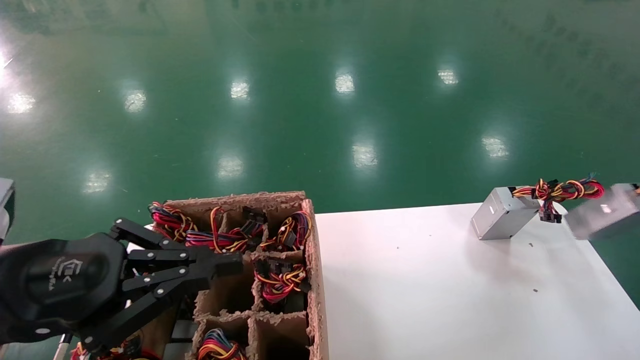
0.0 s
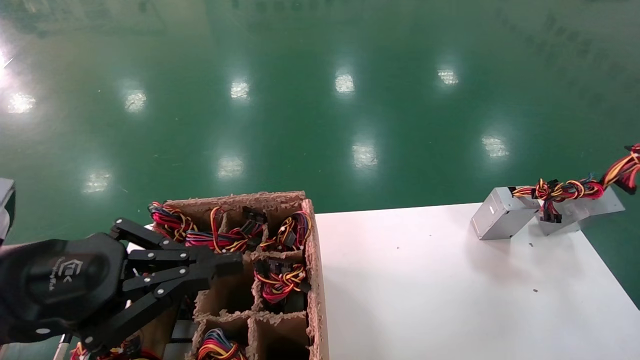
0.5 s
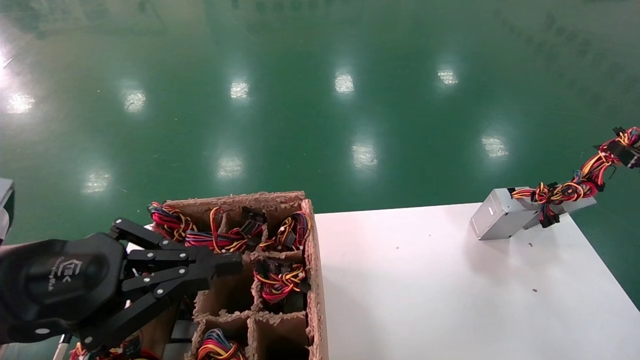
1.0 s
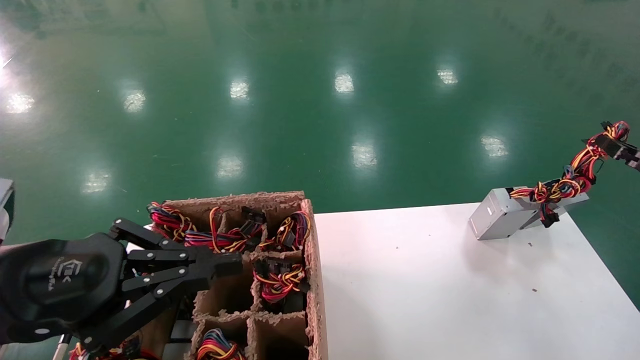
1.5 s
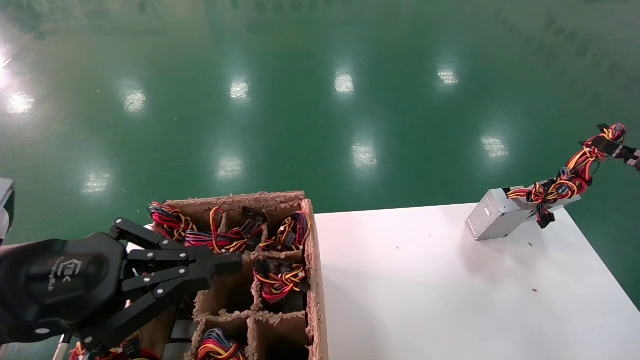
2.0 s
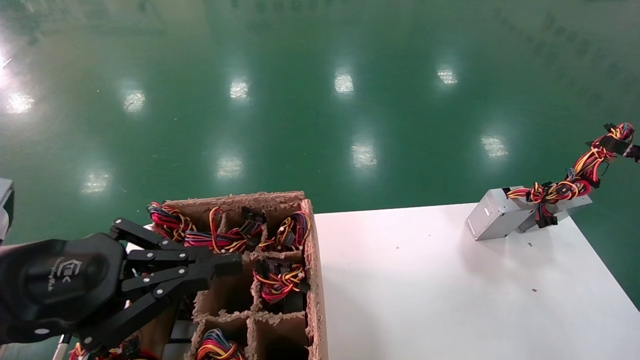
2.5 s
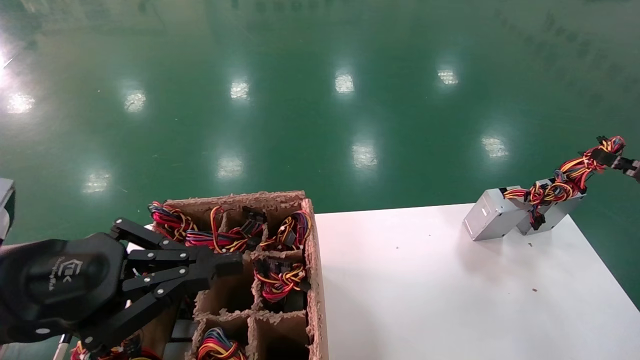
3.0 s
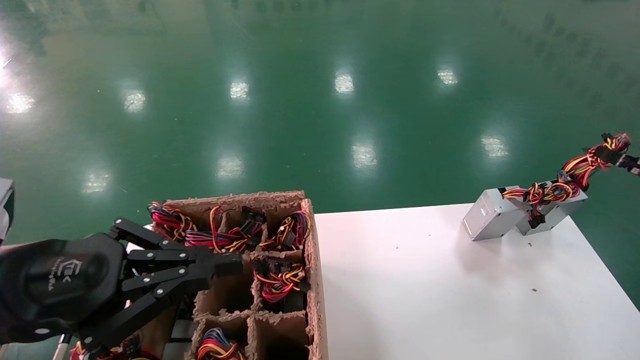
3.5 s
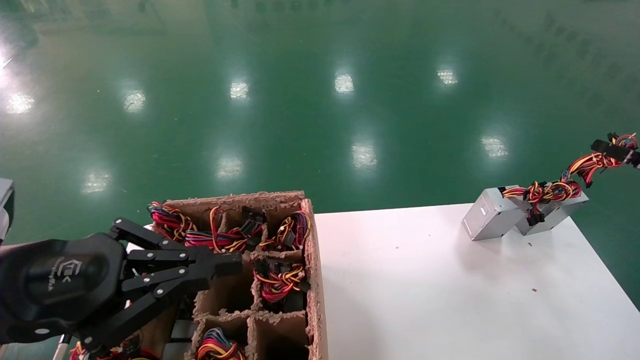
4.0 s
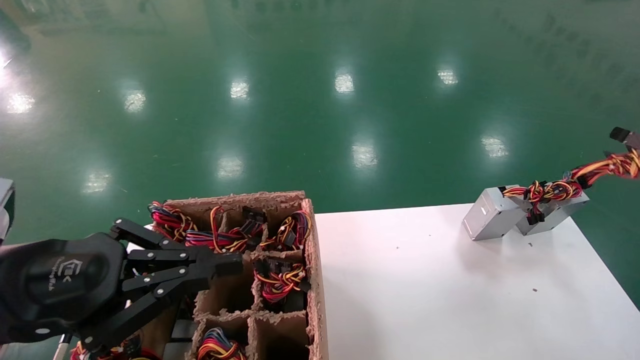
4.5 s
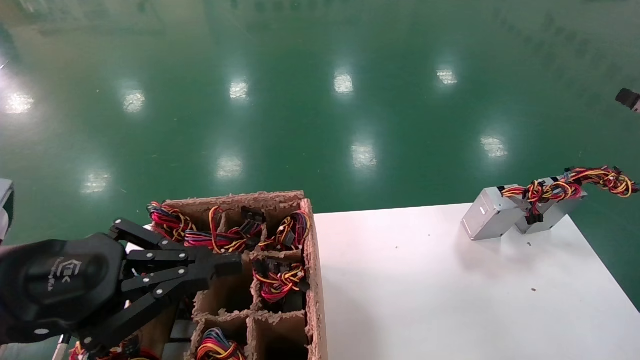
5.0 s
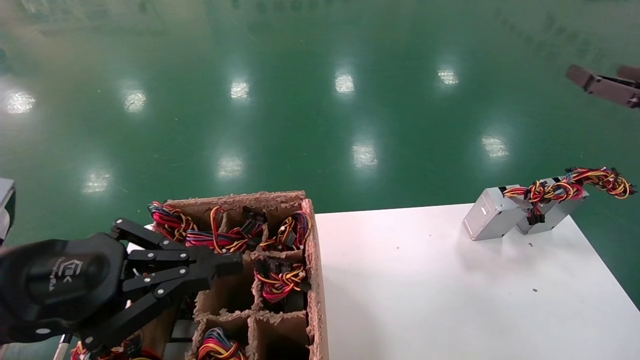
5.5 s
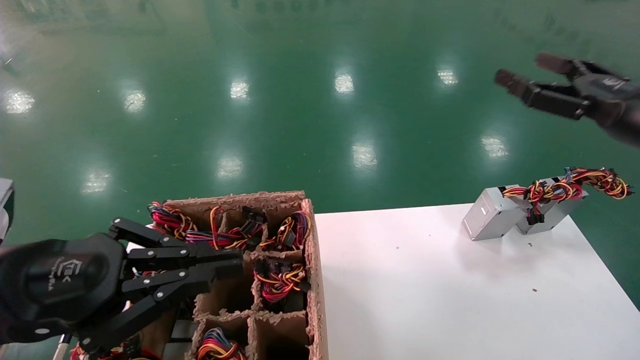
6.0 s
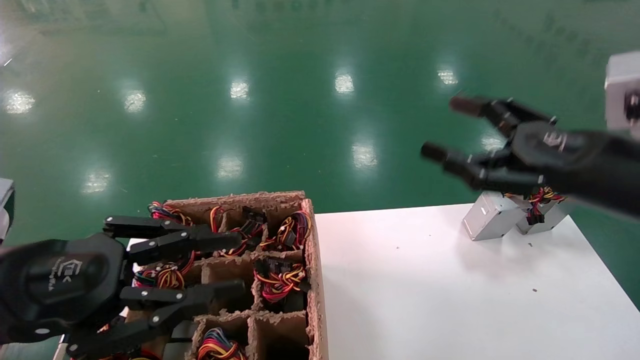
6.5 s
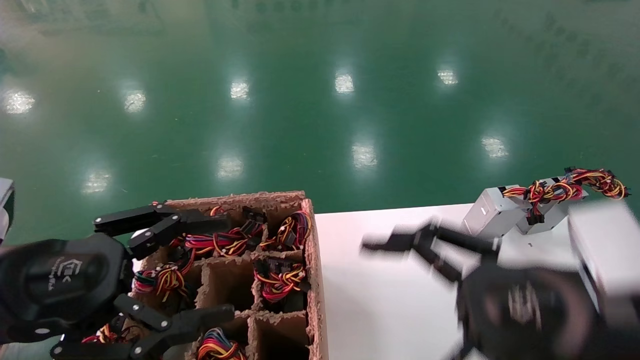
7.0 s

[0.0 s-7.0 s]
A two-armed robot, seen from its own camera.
Step, 0.0 to 4.5 s: Place the main unit power supply in the designated area.
0.0 to 2.0 s: The right gripper shifts roughly 10 cm forward and to the left.
2.0 to 3.5 s: Neither gripper changes place.
3.5 to 5.0 s: The right gripper goes approximately 5 cm upward, and opens its fingers.
5.0 to 7.0 s: The left gripper opens, while the right gripper moves to the left and backward, about 30 cm.
